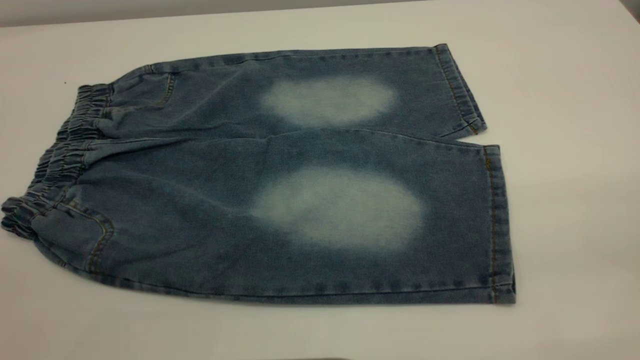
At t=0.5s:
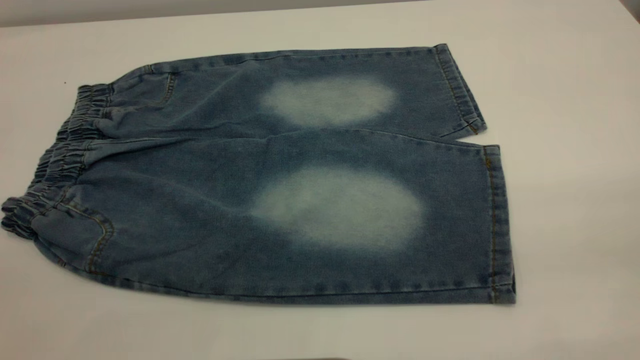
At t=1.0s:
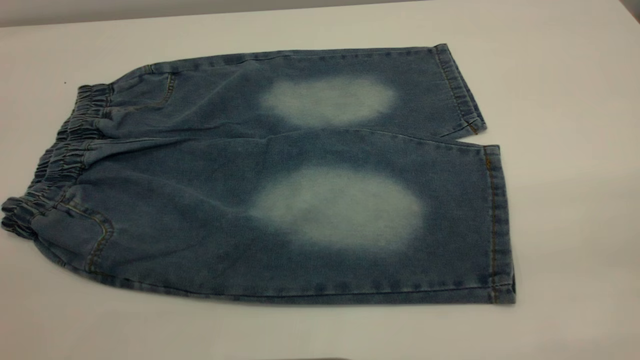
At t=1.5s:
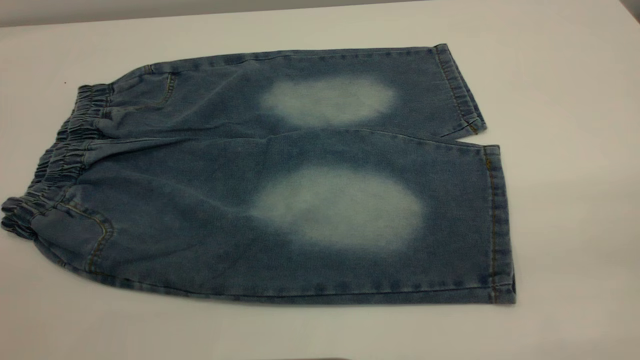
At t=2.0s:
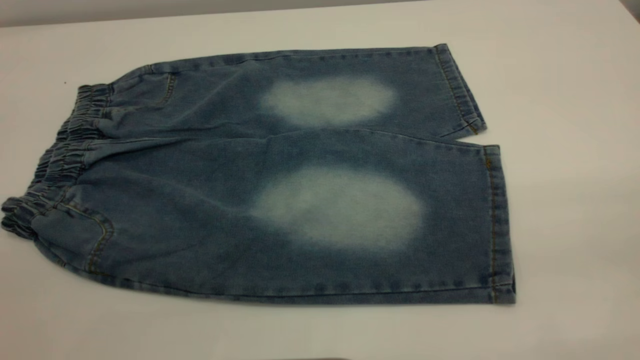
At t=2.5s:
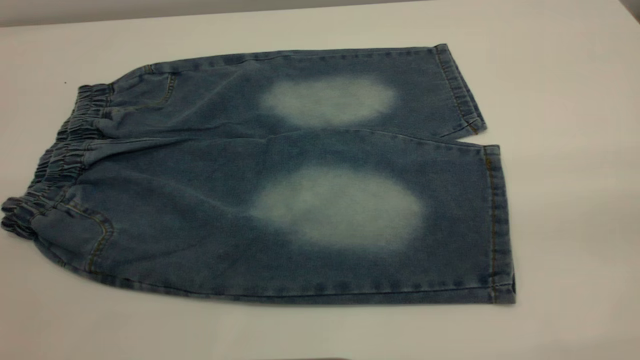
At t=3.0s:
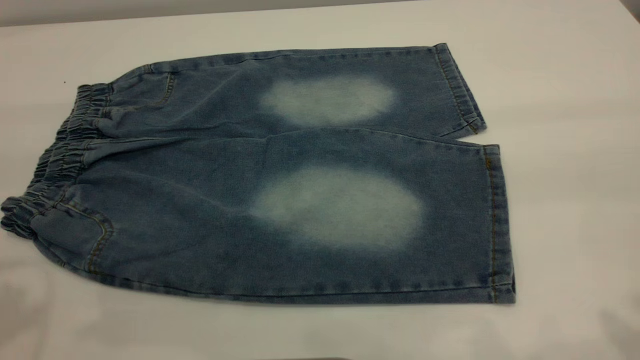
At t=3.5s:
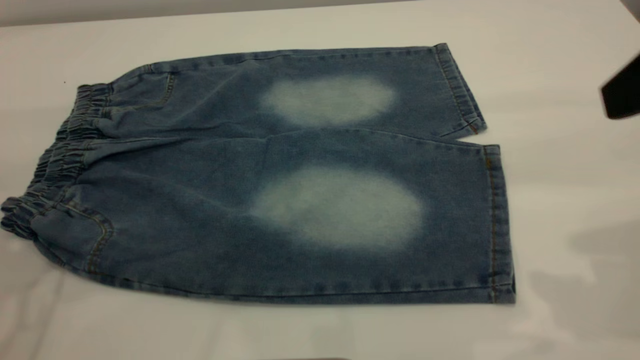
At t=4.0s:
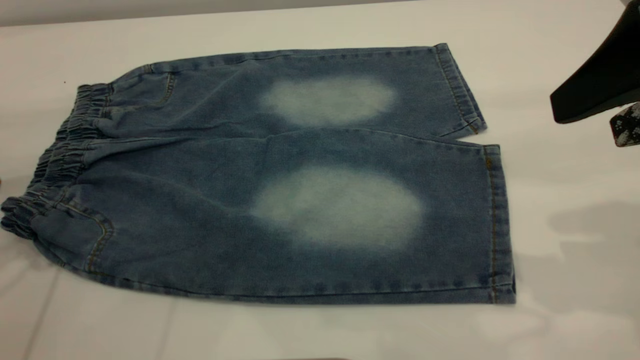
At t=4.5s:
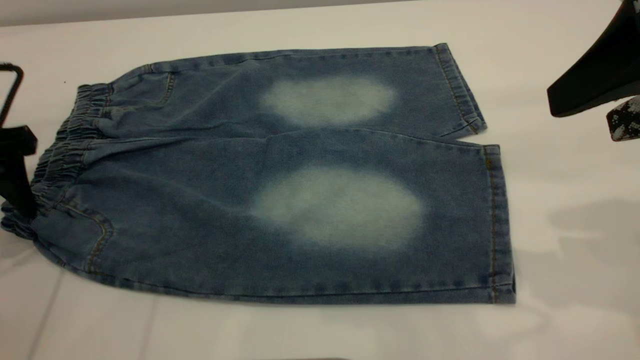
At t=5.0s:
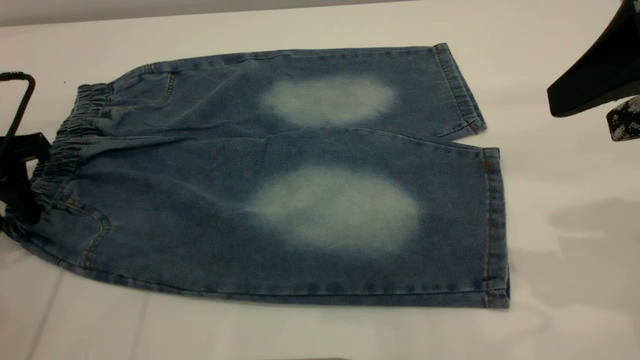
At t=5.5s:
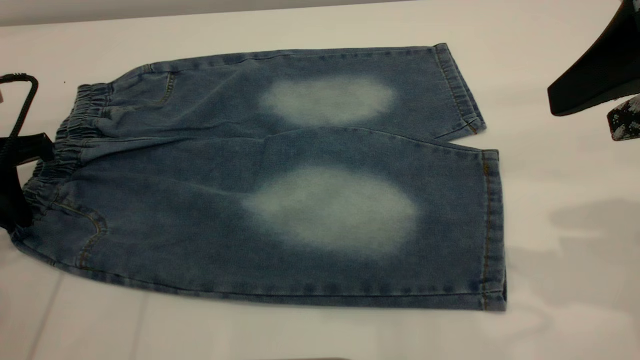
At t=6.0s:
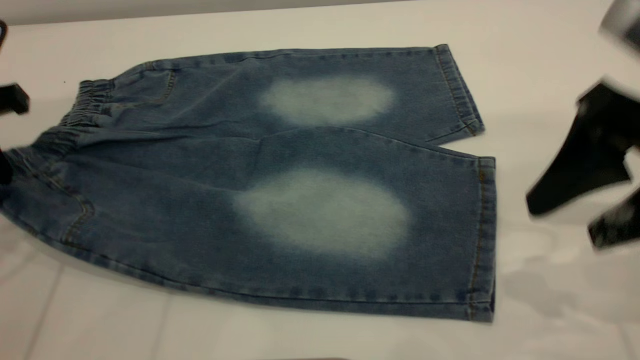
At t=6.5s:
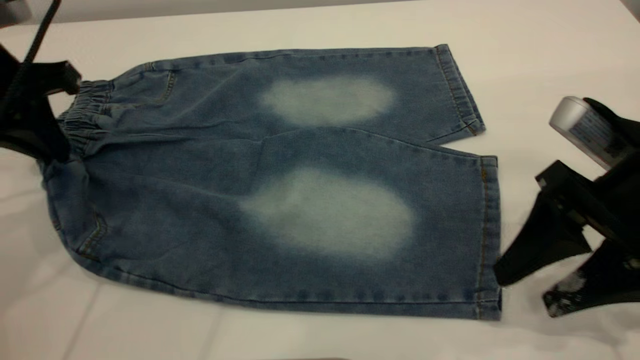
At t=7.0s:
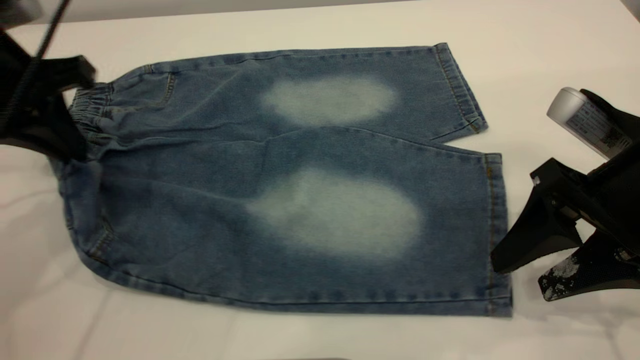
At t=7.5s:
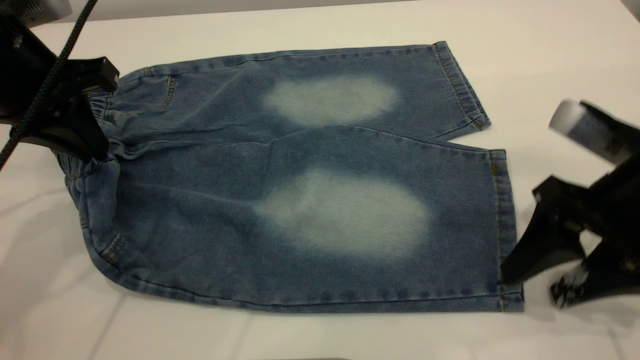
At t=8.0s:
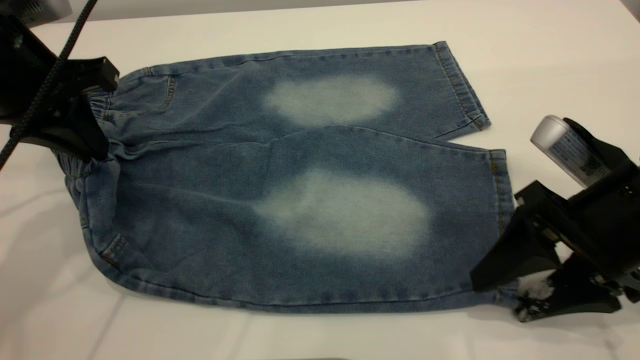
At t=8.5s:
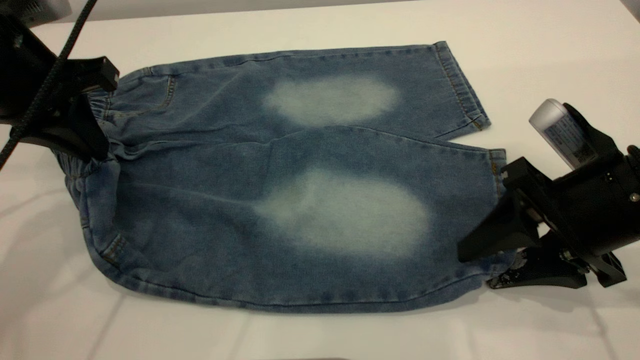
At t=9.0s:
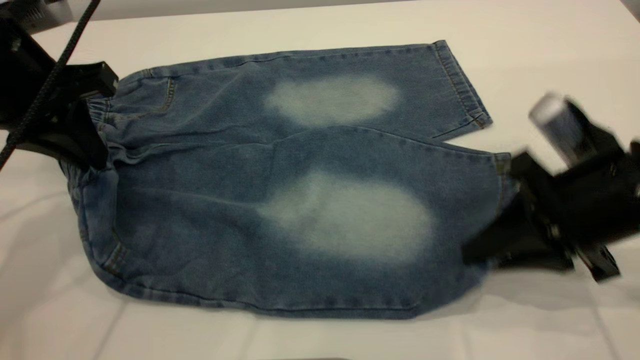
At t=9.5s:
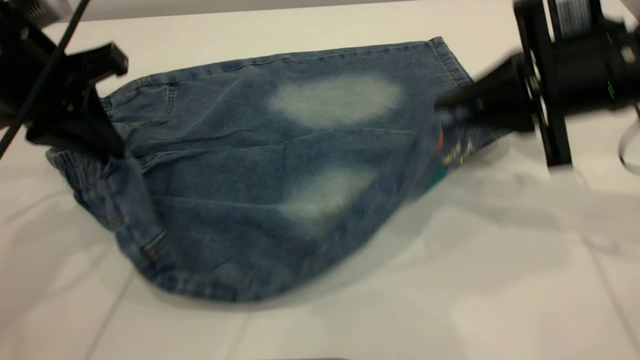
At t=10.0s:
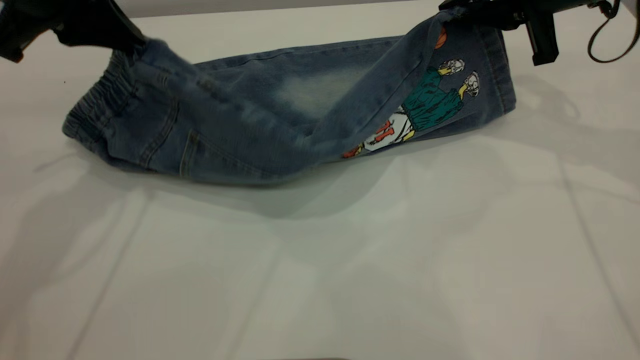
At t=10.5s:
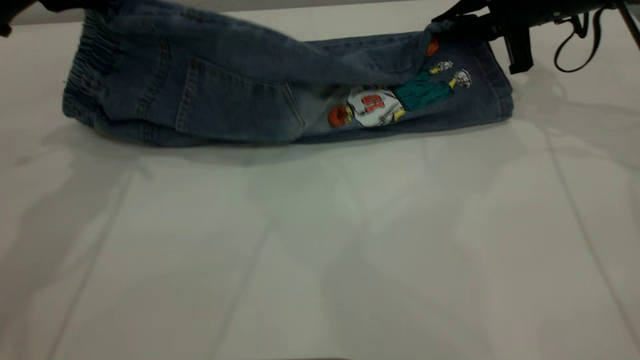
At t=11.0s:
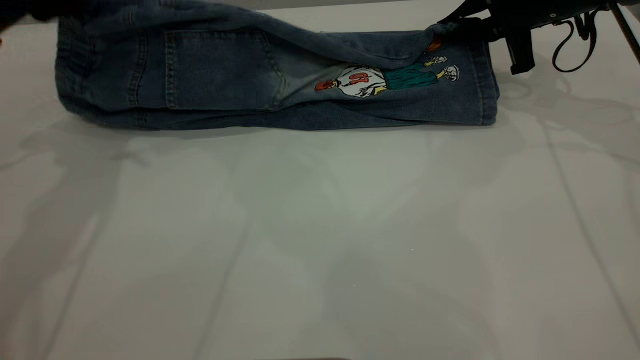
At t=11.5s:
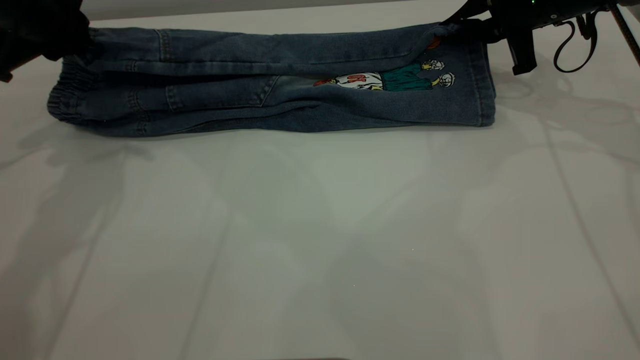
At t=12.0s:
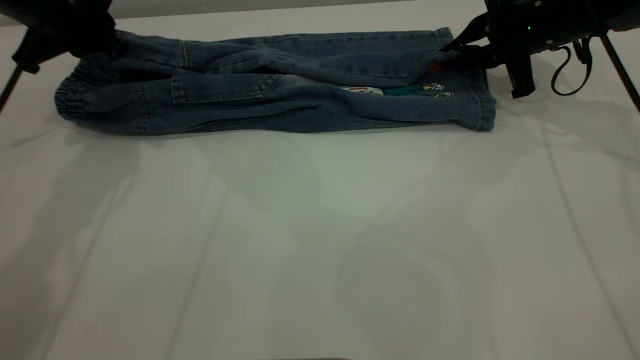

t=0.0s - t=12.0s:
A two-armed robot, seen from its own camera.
t=0.0s - t=2.0s: Both grippers stay about where they are.
t=2.0s - t=4.0s: The right gripper travels forward by roughly 20 cm, and opens its fingers; the left gripper goes approximately 30 cm forward and downward.
t=4.0s - t=6.0s: The right gripper moves downward, some 5 cm; the left gripper closes.
t=6.0s - t=8.0s: The right gripper goes some 10 cm downward, while the left gripper travels to the right by some 10 cm.
t=8.0s - t=10.0s: The right gripper goes some 20 cm forward and upward, and closes. Meanwhile the left gripper changes place by approximately 5 cm.
t=10.0s - t=12.0s: The left gripper heads forward and downward, covering roughly 10 cm, while the right gripper heads downward and forward, covering roughly 10 cm.

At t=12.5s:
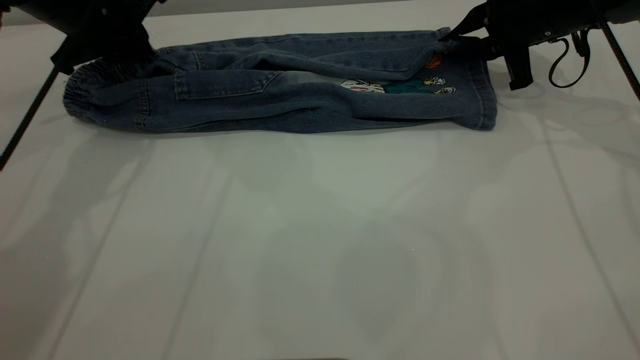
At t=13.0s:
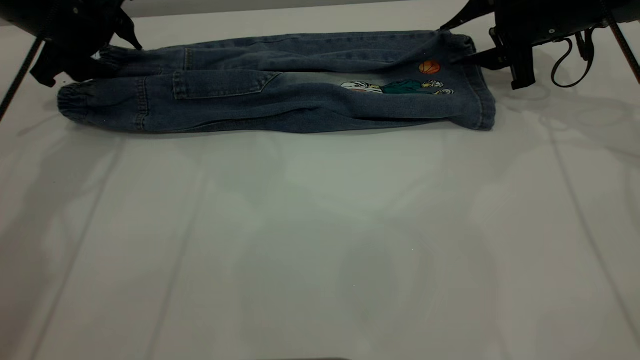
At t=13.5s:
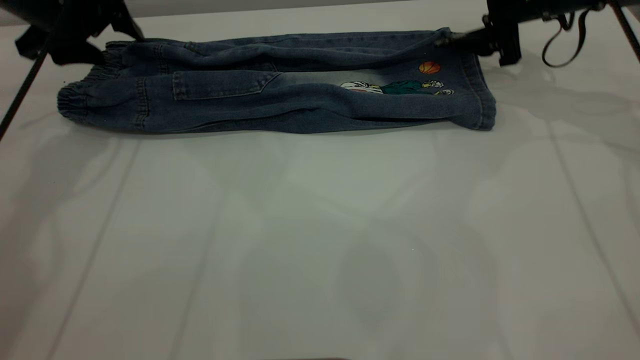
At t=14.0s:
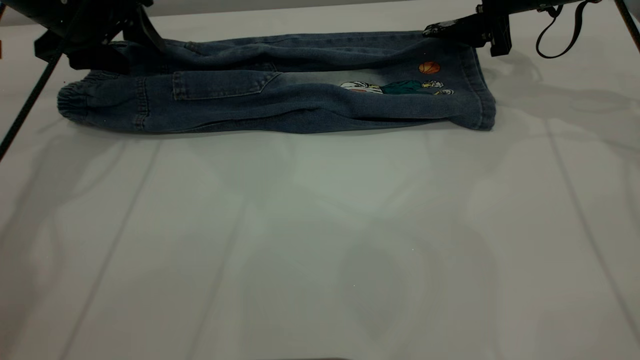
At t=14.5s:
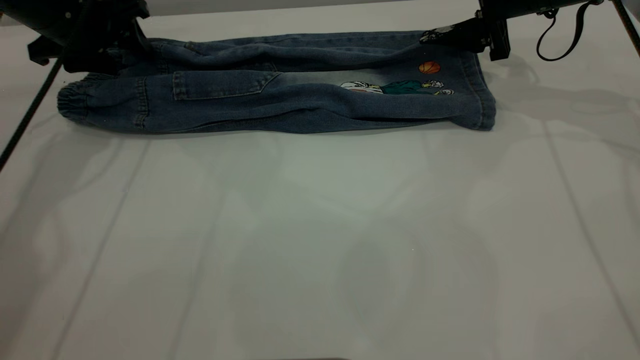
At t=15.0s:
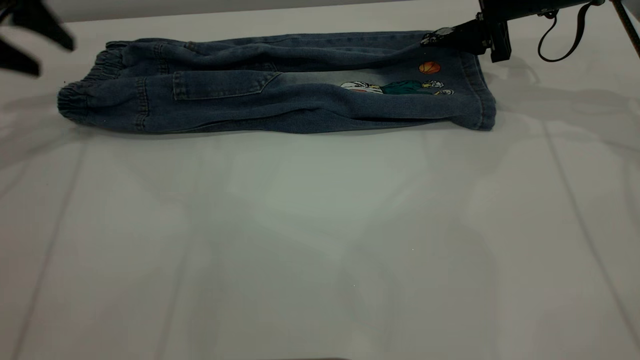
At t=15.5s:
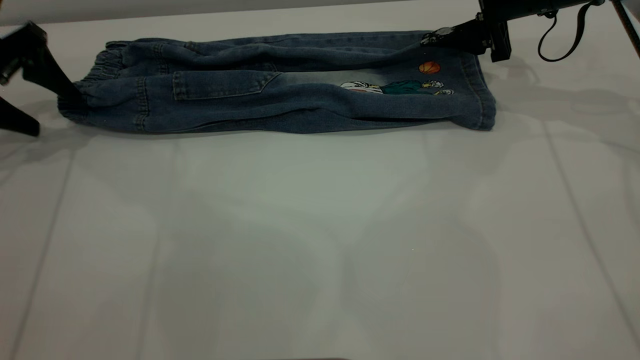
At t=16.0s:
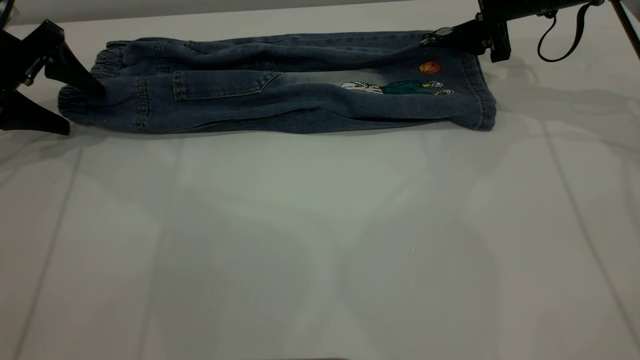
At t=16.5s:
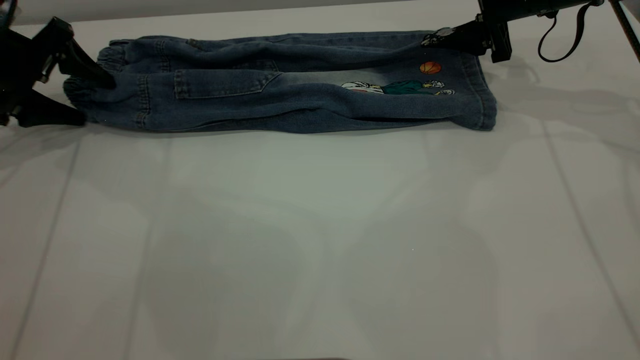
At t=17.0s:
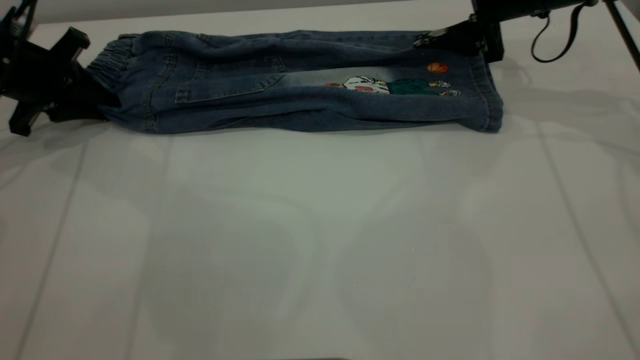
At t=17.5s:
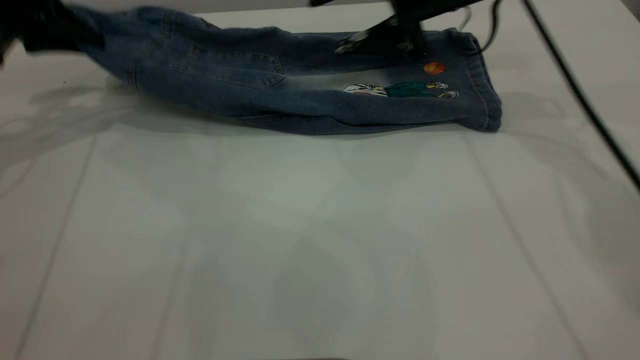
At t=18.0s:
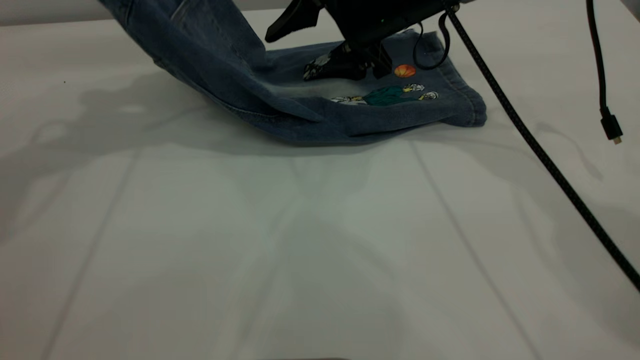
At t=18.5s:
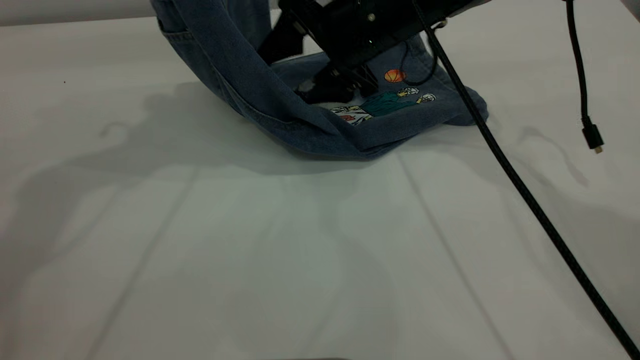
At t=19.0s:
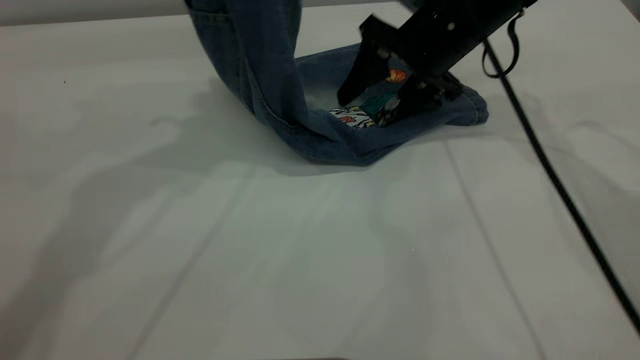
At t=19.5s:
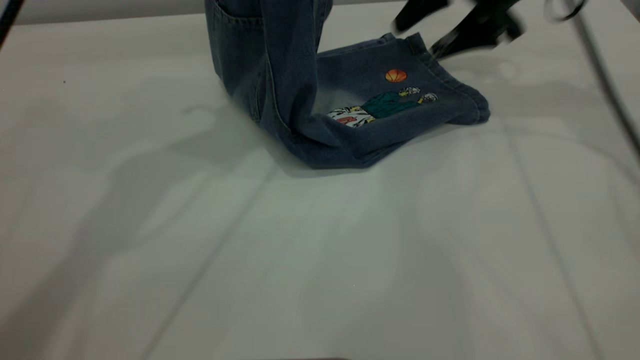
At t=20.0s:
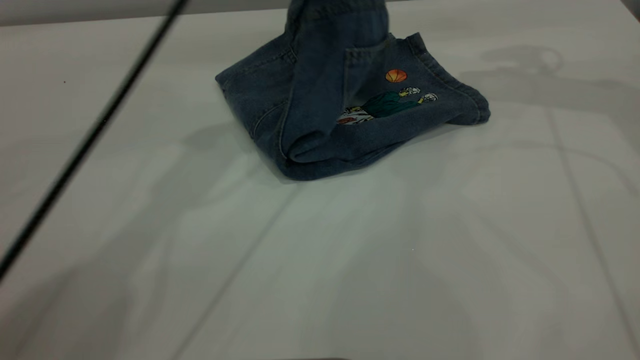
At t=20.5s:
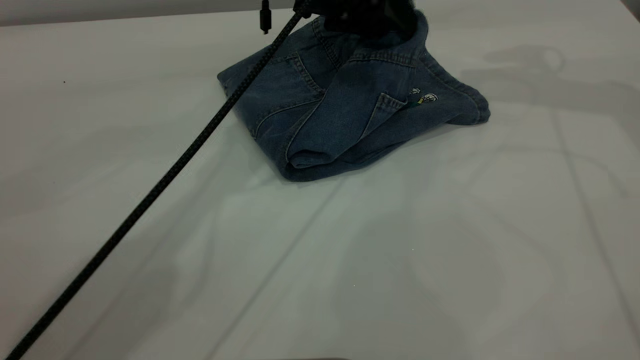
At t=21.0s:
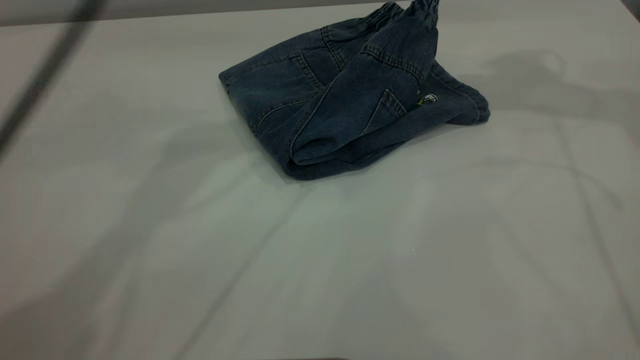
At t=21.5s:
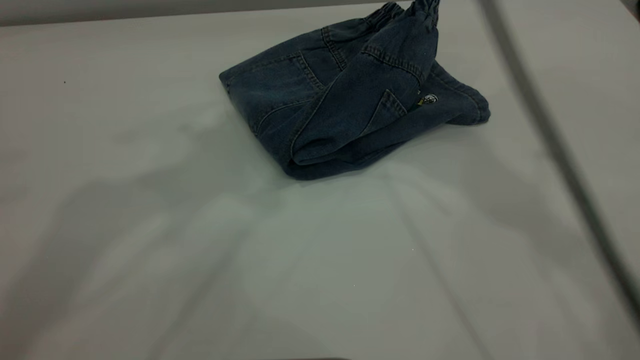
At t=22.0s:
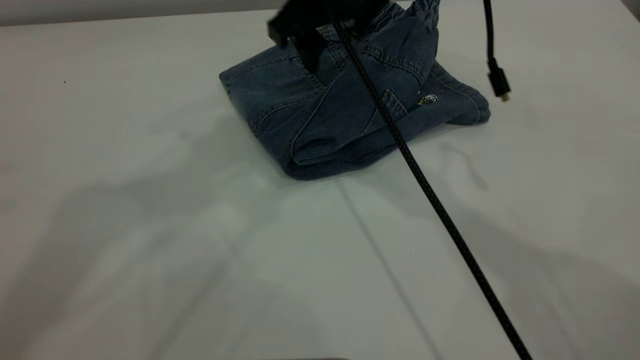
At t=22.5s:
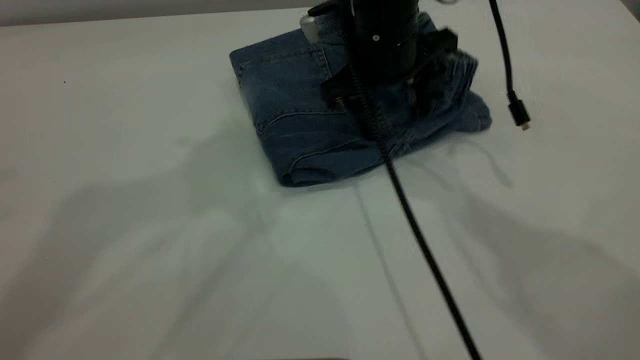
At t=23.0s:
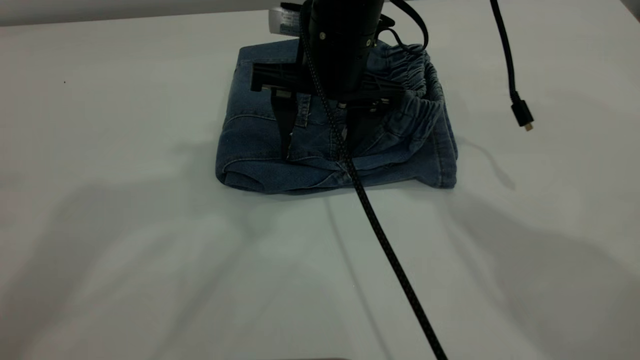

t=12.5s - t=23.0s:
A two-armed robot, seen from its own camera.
Step, t=12.5s - t=14.5s: Fold the bottom of the pants upward.
Step, t=15.0s - t=21.0s: Fold the pants from left to right.
t=12.5s - t=14.5s: The right gripper opens up; the left gripper opens its fingers.
t=14.5s - t=16.5s: The left gripper is displaced to the left by roughly 10 cm.
t=16.5s - t=19.0s: The left gripper travels upward and to the right by about 30 cm, and closes, while the right gripper moves to the left, approximately 10 cm.
t=19.0s - t=21.0s: The right gripper heads upward and to the right, covering about 20 cm; the left gripper moves to the right, about 5 cm, reaches some 15 cm downward, then returns, and opens.
t=21.0s - t=23.0s: The left gripper travels upward, backward and to the left by some 15 cm, while the right gripper moves to the left and downward, roughly 30 cm.
